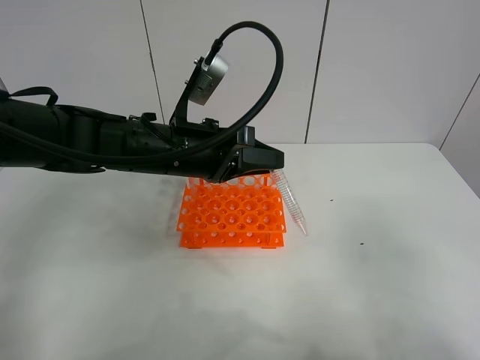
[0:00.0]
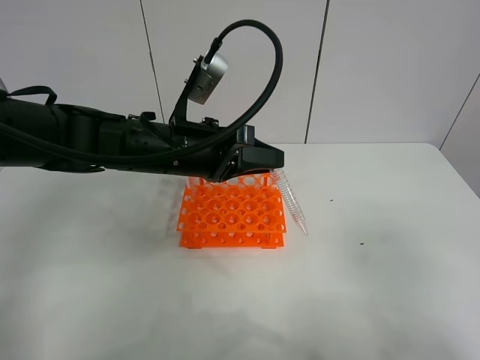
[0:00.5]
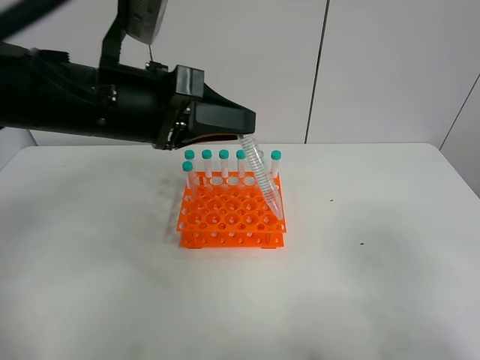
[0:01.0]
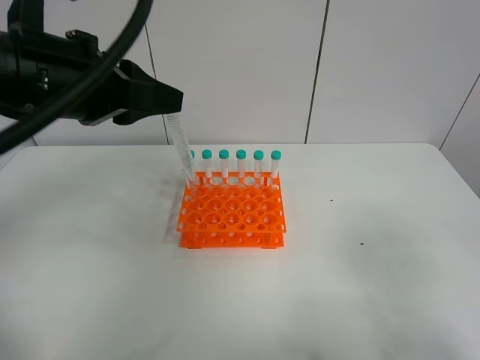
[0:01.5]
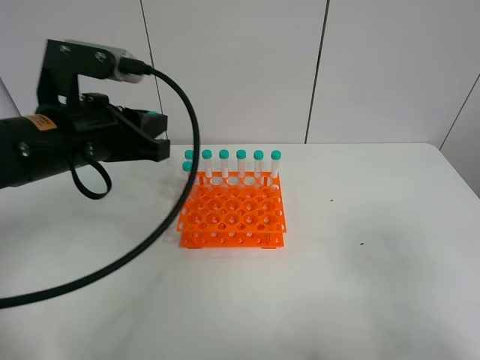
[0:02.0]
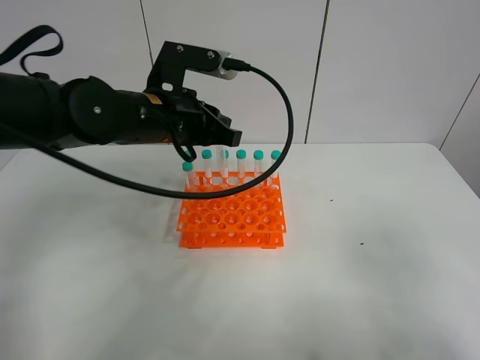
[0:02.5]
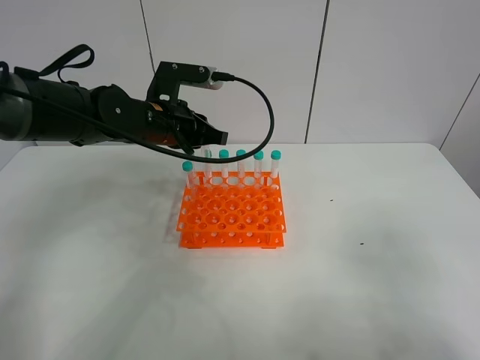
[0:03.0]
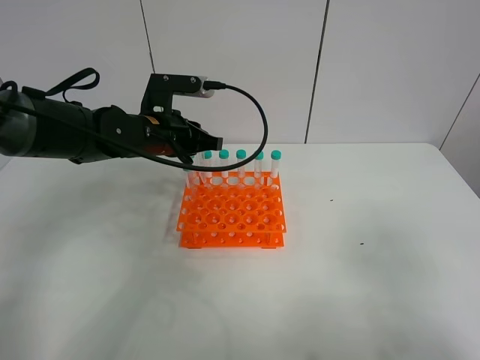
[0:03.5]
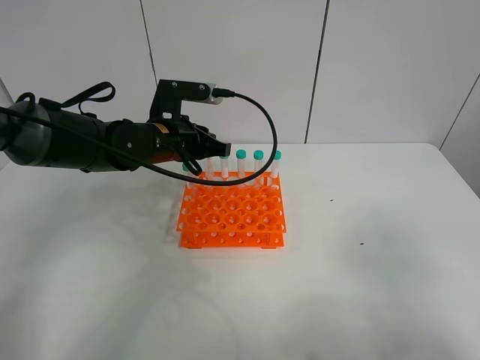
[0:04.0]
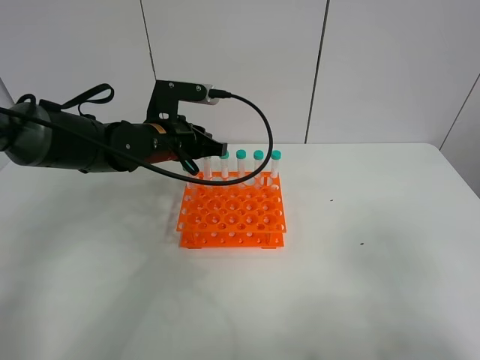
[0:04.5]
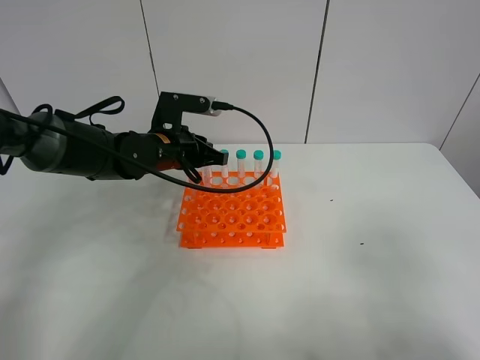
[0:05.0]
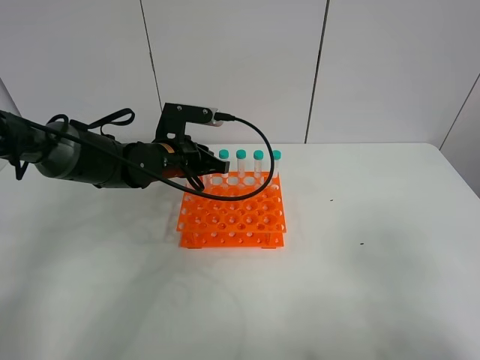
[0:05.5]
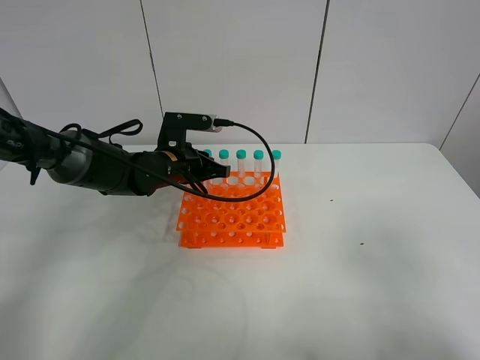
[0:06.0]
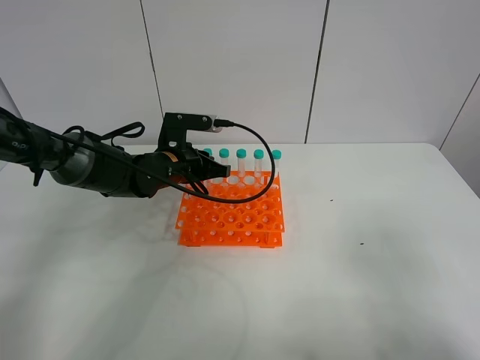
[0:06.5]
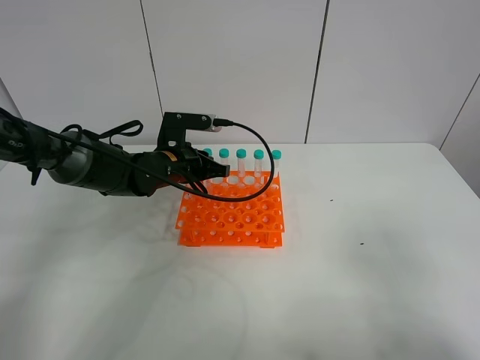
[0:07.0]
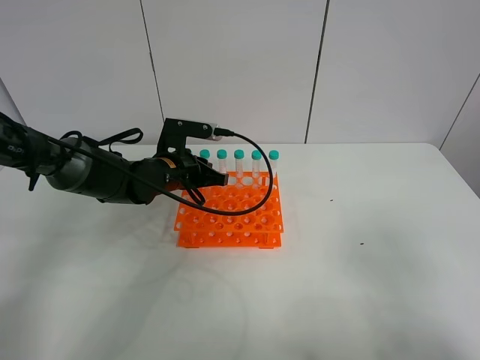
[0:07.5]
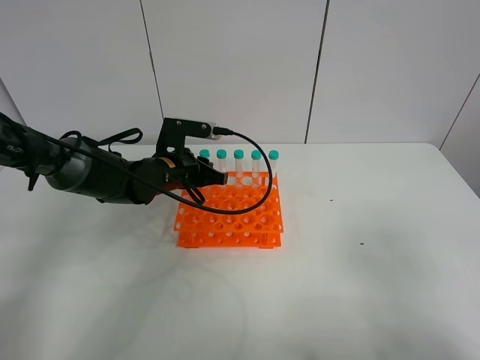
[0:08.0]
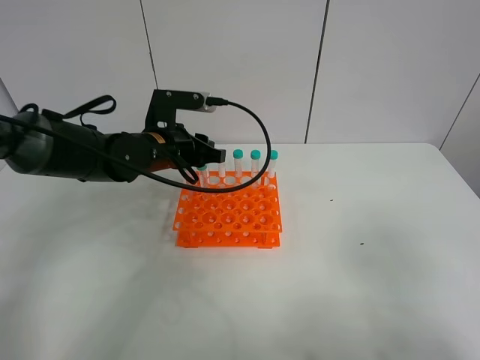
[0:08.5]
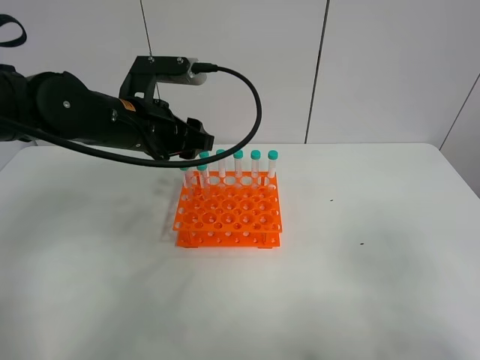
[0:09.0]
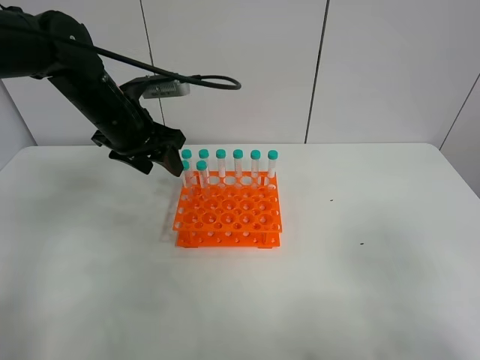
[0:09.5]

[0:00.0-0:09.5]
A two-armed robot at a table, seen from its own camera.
Task of the whole recording: Put the test tube on the table back onto the test tube rack.
Step, 0:00.0 to 0:08.0: Place the test tube on the test tube rack with the left gripper.
0:00.0 to 0:02.0: The left gripper goes roughly 10 cm to the left and upward.
0:02.0 to 0:04.0: The left gripper moves forward, downward and to the right, roughly 15 cm.
0:04.0 to 0:05.5: The grippers stay close to where they were, moving slightly.
0:05.5 to 0:07.5: The grippers stay close to where they were, moving slightly.
0:07.5 to 0:09.5: The left gripper goes approximately 15 cm upward and to the left, and opens its fingers.

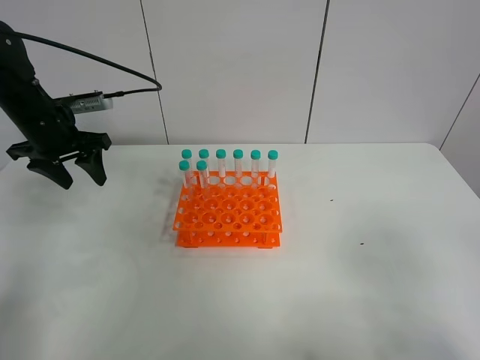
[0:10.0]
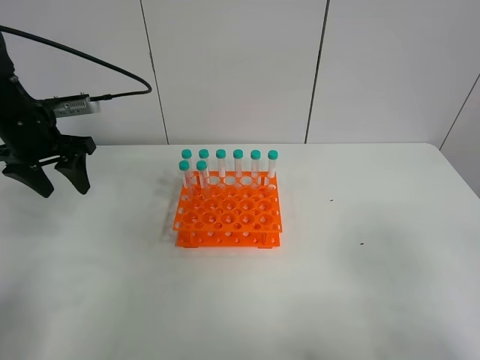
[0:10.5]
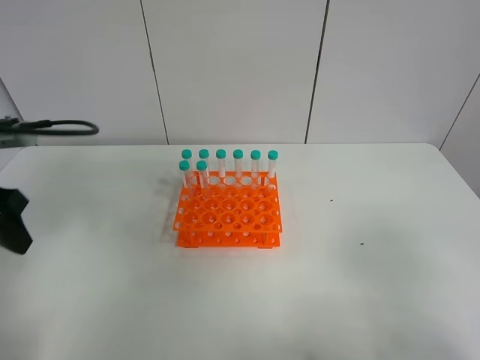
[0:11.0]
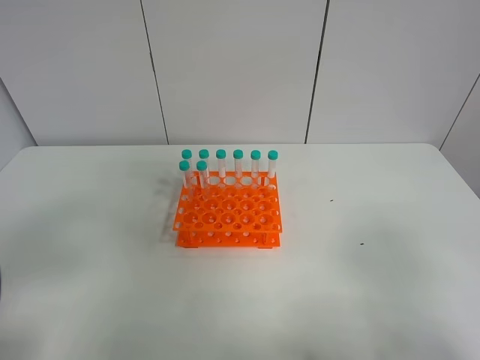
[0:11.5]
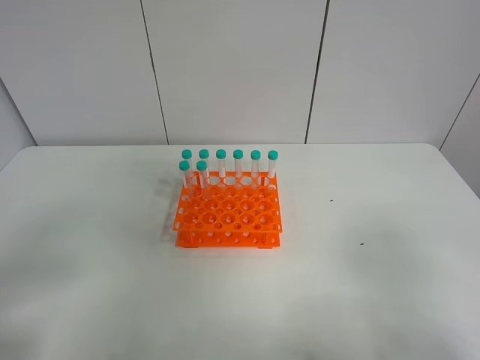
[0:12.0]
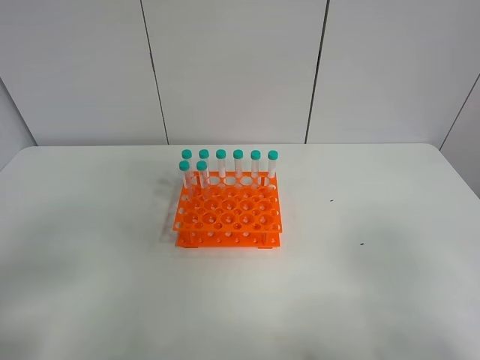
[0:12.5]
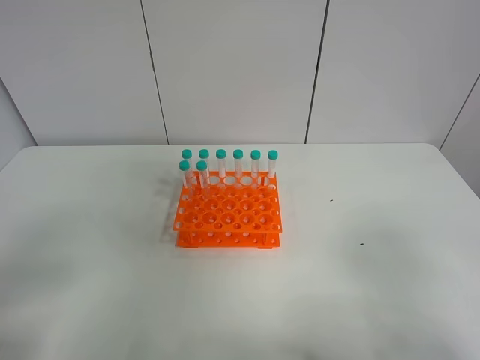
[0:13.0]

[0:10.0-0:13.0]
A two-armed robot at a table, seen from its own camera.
Task of the whole recording: Put the test tube on the table back onto the test tube rack.
0:10.0 to 0:11.5: The left gripper is displaced backward by approximately 30 cm.

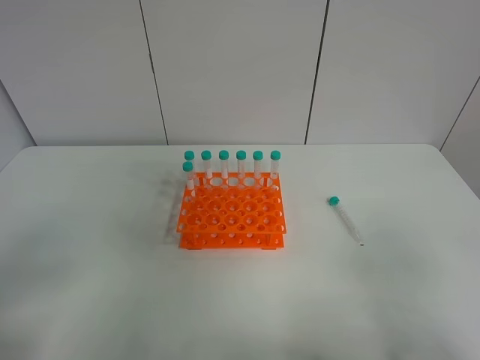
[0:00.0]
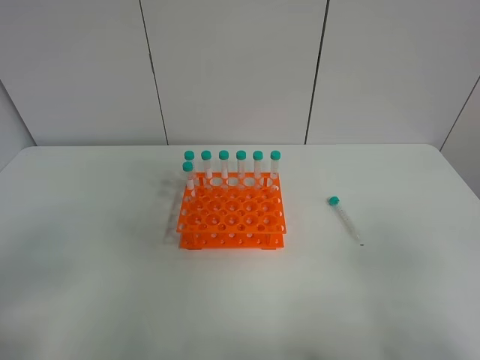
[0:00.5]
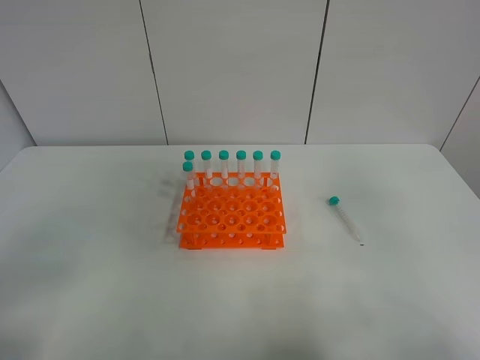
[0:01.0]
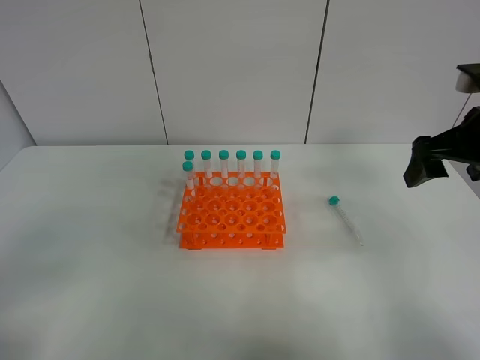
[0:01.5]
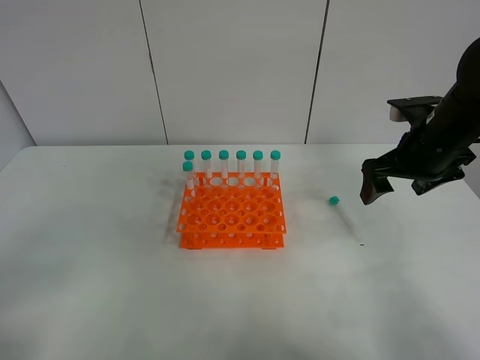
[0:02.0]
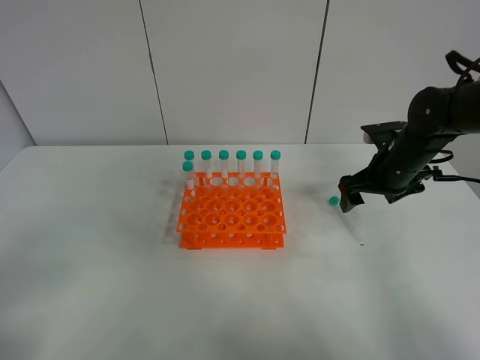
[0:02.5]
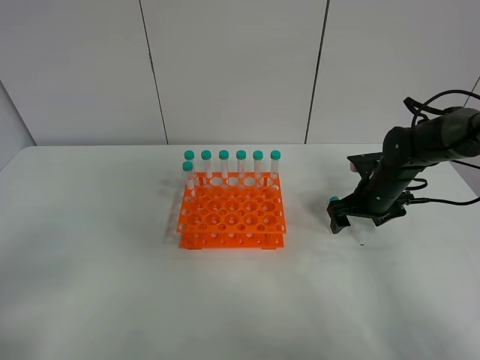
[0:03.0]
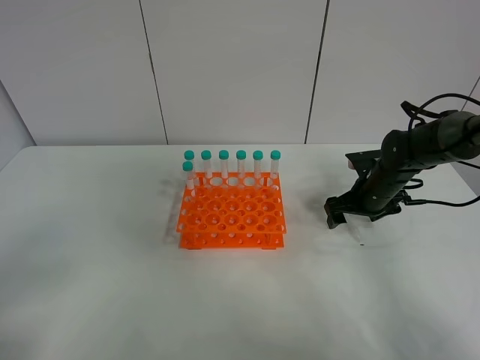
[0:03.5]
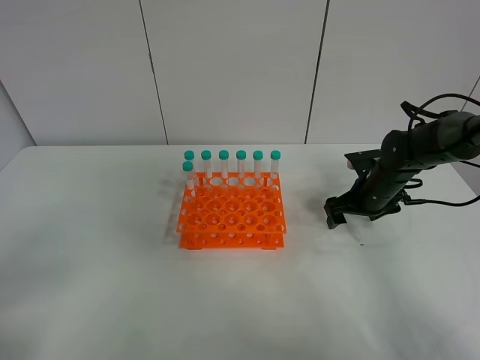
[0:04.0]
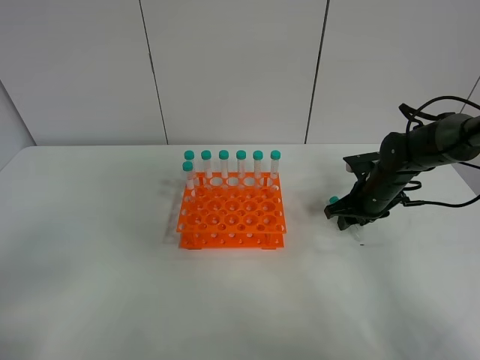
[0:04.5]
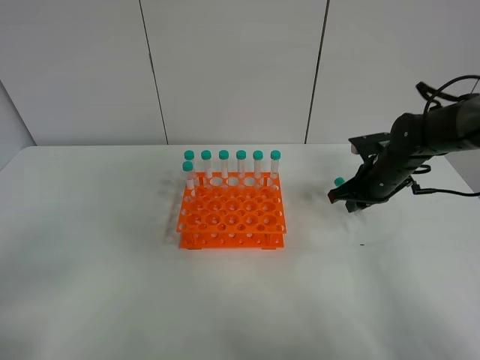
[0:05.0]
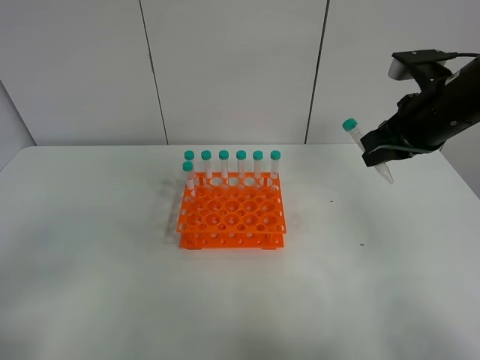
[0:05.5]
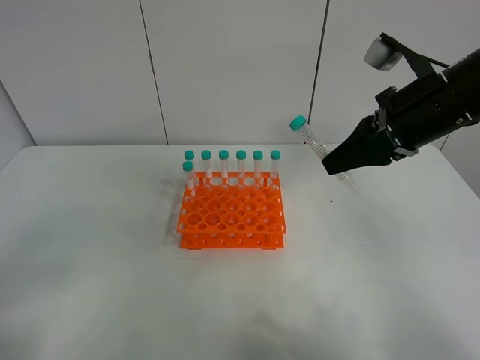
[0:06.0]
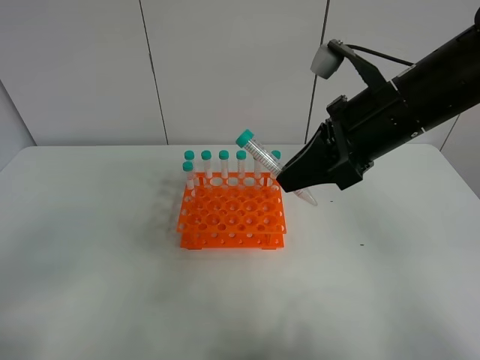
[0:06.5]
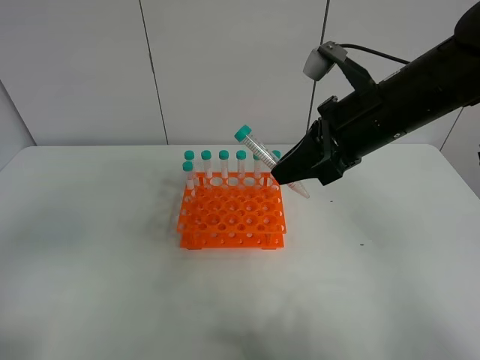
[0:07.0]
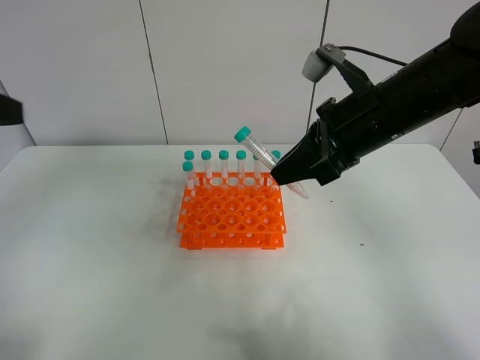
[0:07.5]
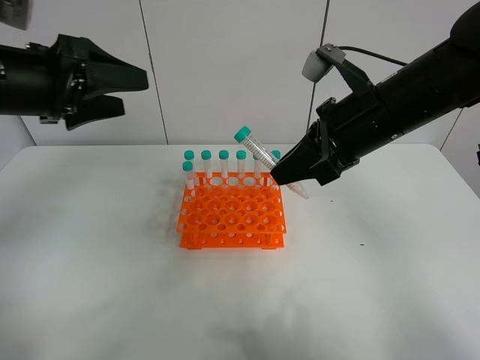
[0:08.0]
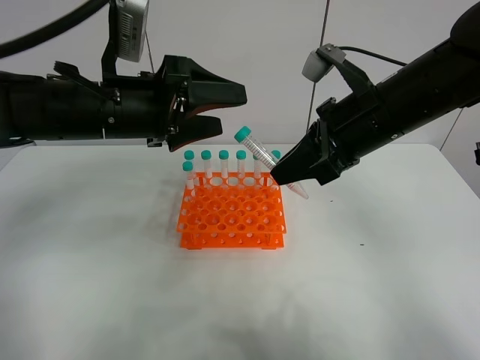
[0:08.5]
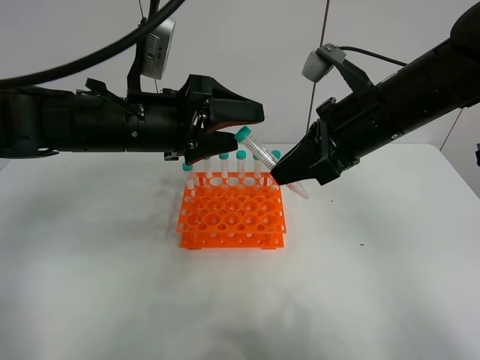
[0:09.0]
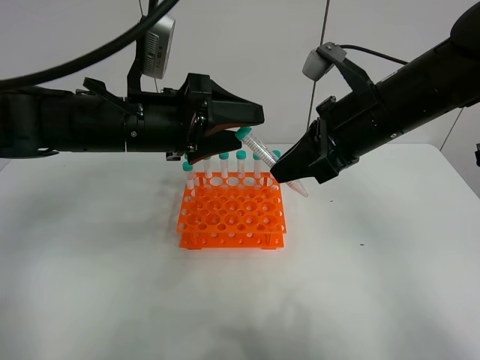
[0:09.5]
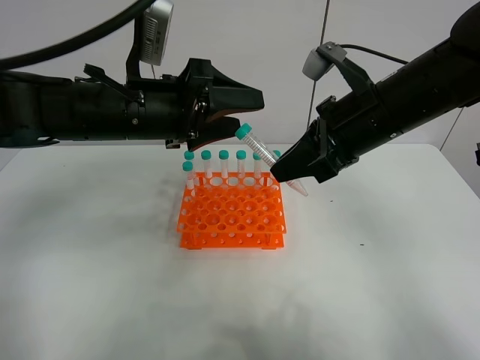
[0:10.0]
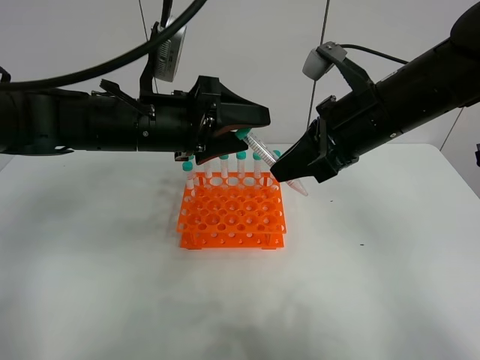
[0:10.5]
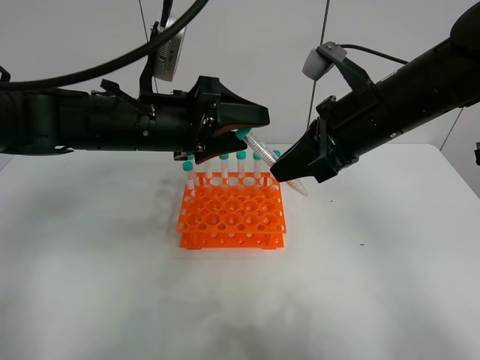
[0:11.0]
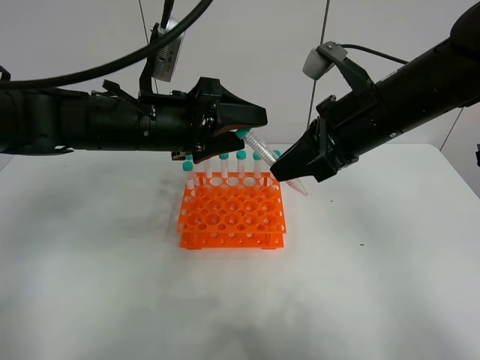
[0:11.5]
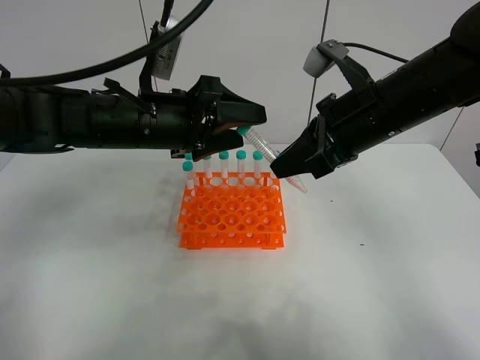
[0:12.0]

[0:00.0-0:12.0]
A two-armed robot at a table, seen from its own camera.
Task of the whole recording: Put the test tube on the table back onto the test tube rack.
Step, 0:00.0 to 0:05.0: Pick up the test tube with the right gripper.
0:00.0 to 0:02.0: The right gripper is displaced forward by approximately 30 cm.
0:02.0 to 0:04.0: The right gripper shifts roughly 15 cm downward and forward.
0:04.0 to 0:06.0: The right gripper travels upward and backward by some 25 cm, and closes.
0:06.0 to 0:08.0: The right gripper moves to the left, some 5 cm; the left gripper moves forward, some 25 cm.
0:08.0 to 0:10.0: The left gripper shifts roughly 10 cm to the right.
0:10.0 to 0:12.0: There are only small adjustments of the grippers.

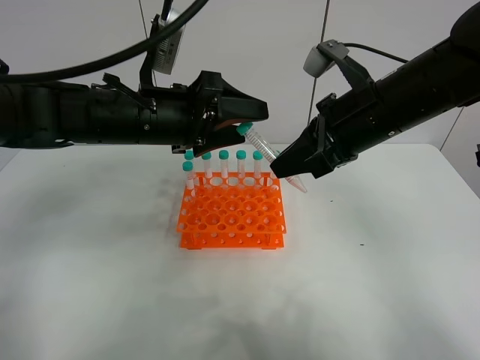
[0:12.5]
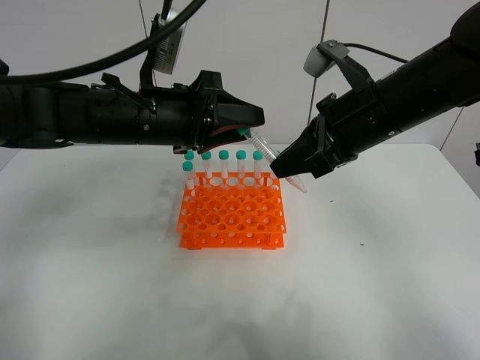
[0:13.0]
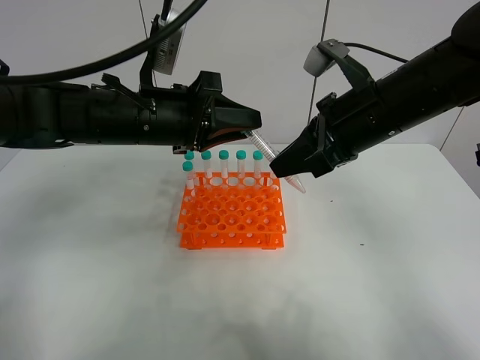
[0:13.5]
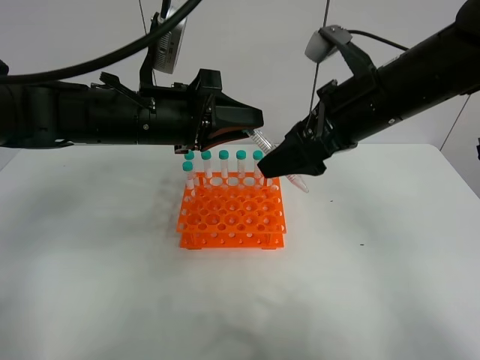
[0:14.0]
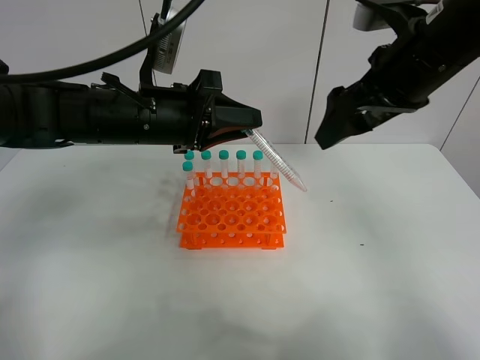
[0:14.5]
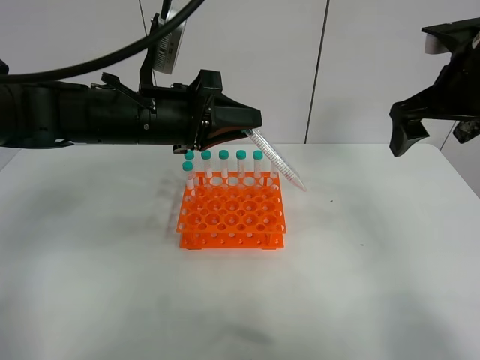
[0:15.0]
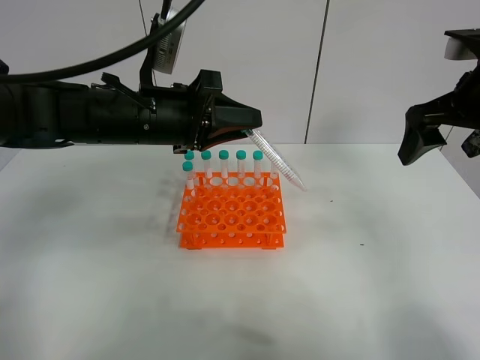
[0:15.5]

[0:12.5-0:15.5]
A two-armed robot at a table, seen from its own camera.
Task of the whole recording: Put the test tube on the table back onto the test tube rack.
Step, 0:12.5 to 0:14.5: Move the test tube from the right gripper to the left gripper.
0:12.5 to 0:14.0: The right gripper opens its fingers; the left gripper closes its fingers.
0:14.0 to 0:15.5: The right gripper shifts about 10 cm to the right.
